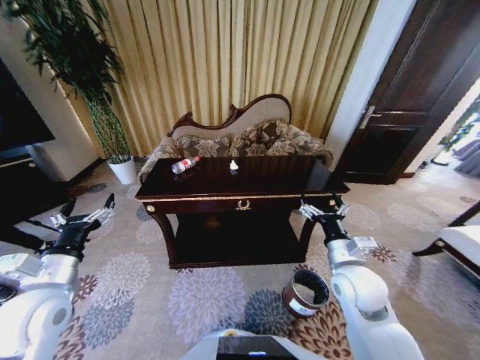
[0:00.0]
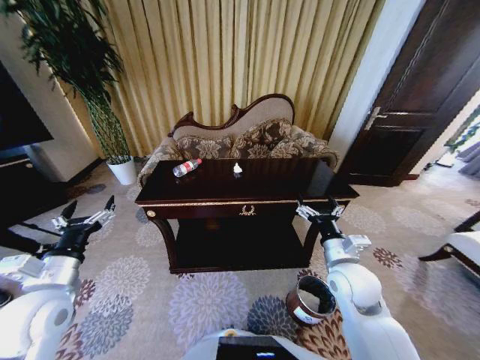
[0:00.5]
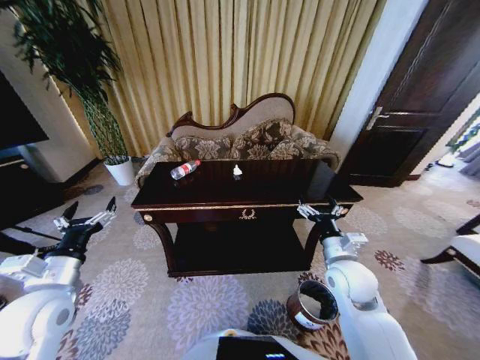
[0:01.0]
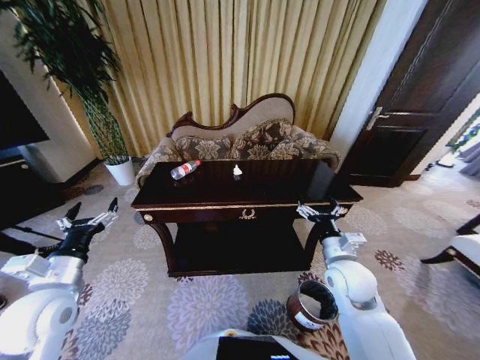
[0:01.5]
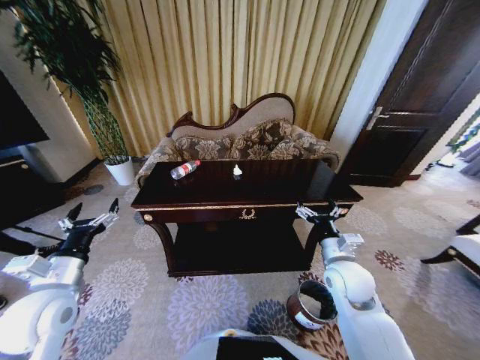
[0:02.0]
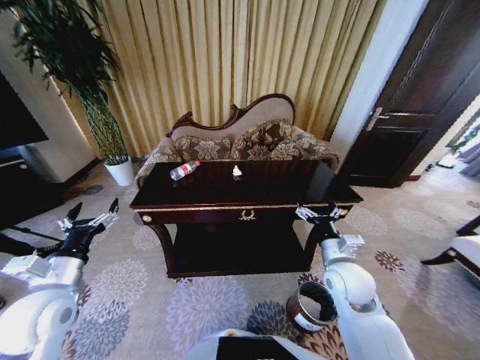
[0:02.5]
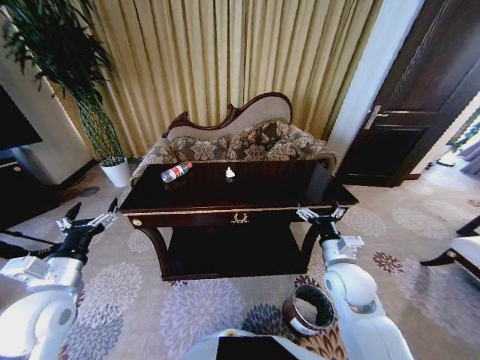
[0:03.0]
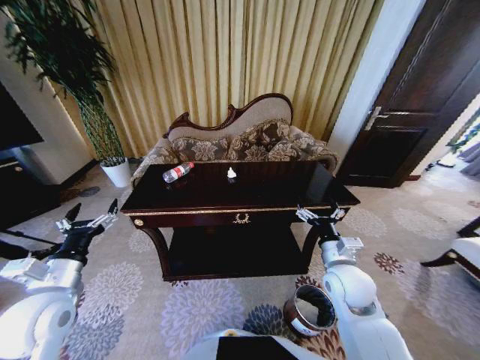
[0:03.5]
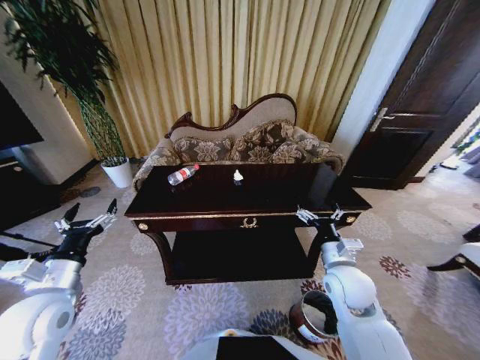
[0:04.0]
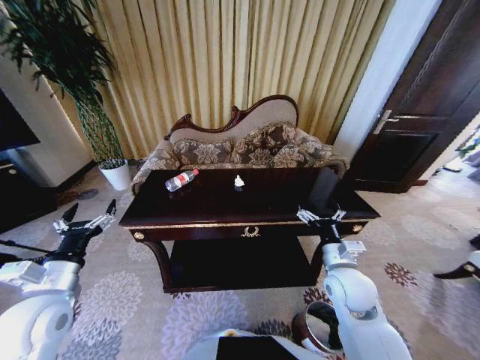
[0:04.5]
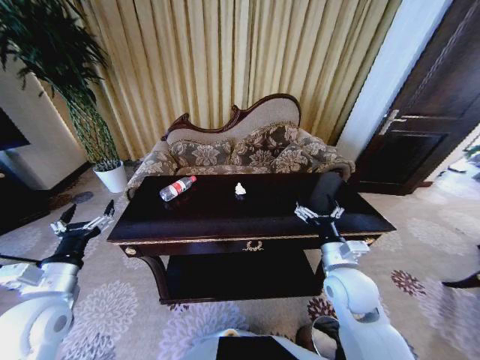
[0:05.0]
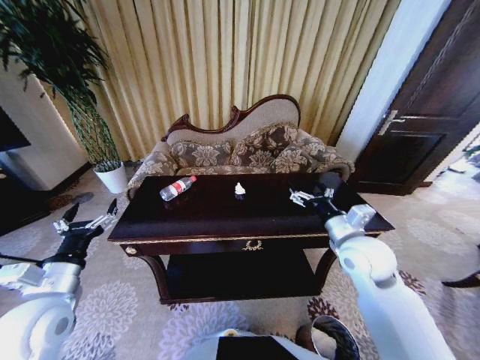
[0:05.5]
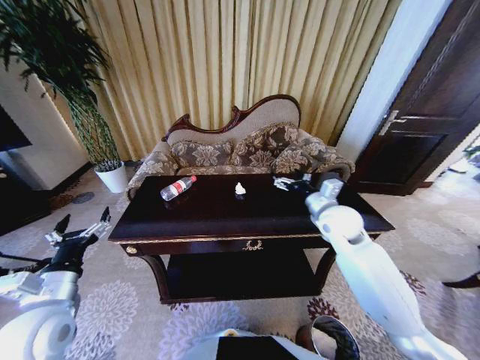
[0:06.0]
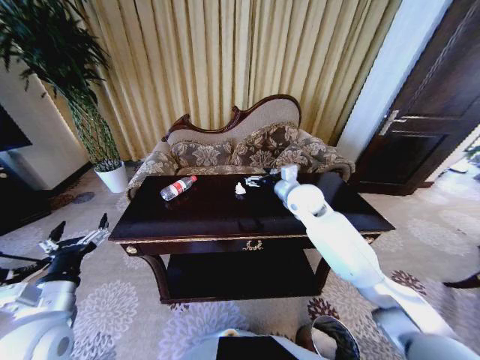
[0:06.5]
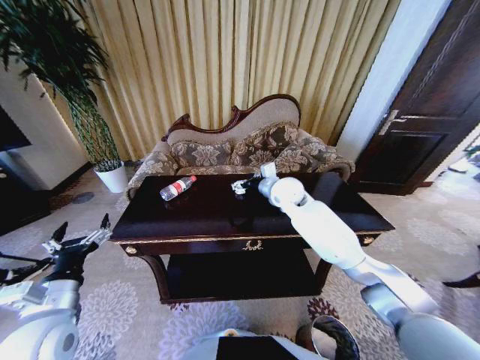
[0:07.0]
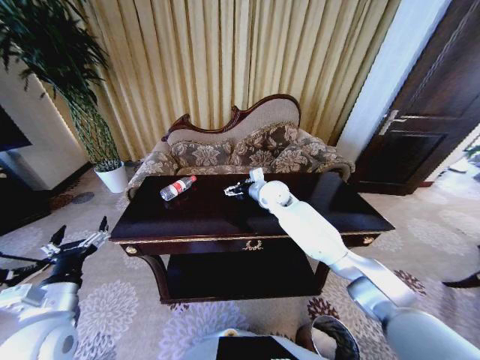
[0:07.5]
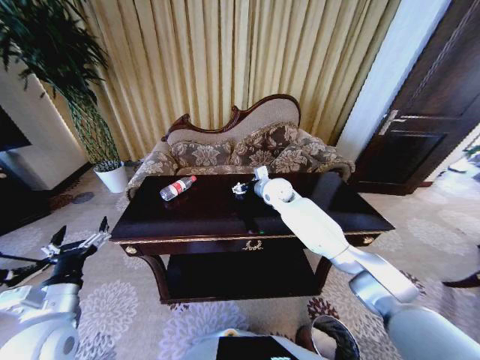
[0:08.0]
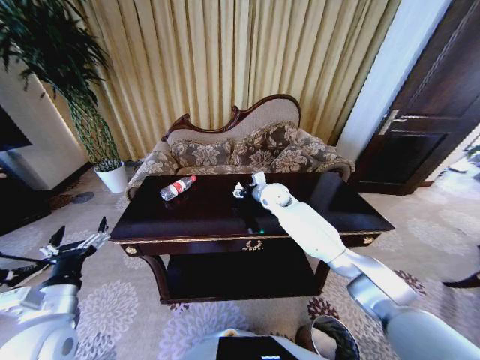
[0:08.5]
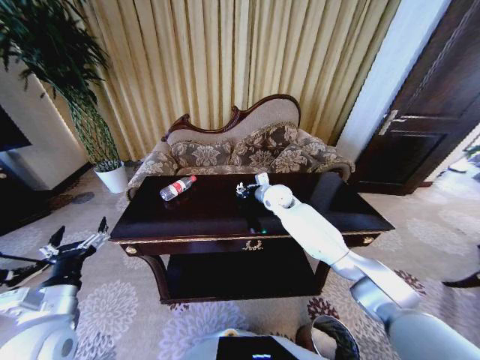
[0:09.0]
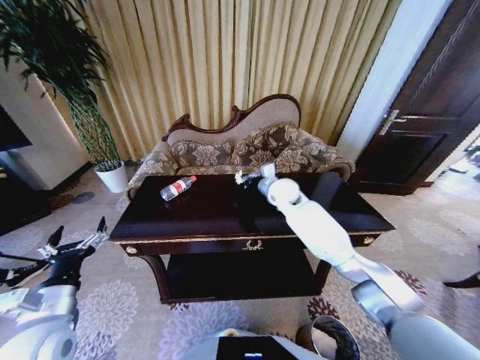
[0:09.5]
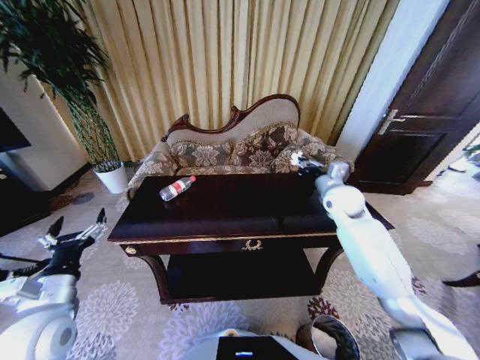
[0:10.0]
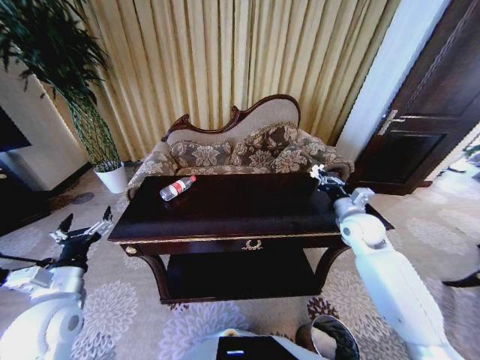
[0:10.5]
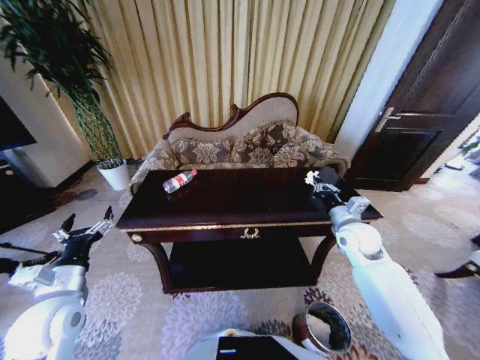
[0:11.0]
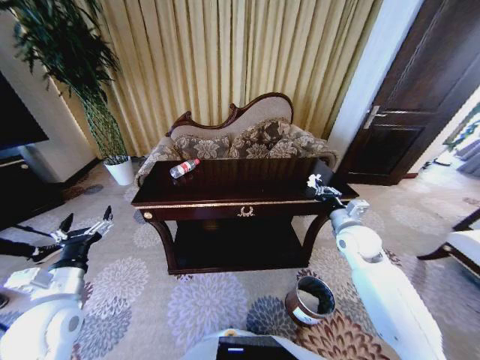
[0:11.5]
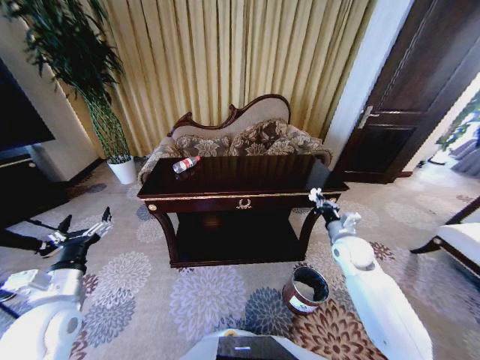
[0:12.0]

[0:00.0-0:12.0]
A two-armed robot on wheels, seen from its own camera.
Task of the whole recording: Move to the front of the table and place the trash on the table into the trash bin.
0:04.0 to 0:06.0: The right gripper heads forward and upward, covering roughly 15 cm.
0:06.0 to 0:08.0: The right gripper moves forward and to the left, roughly 20 cm.
0:08.0 to 0:10.0: The right gripper is displaced to the right and backward by about 20 cm, and closes up.
0:10.0 to 0:12.0: The right gripper shifts about 15 cm downward and backward.

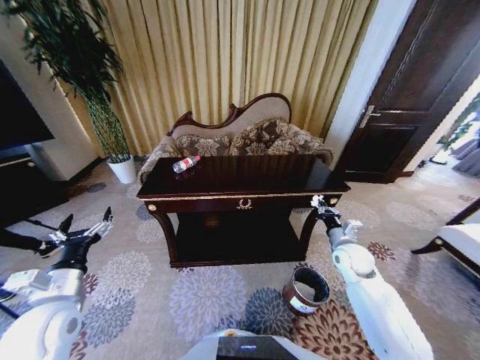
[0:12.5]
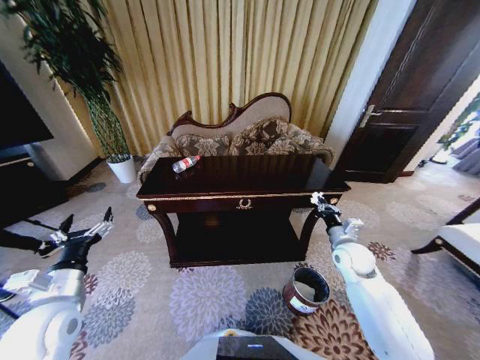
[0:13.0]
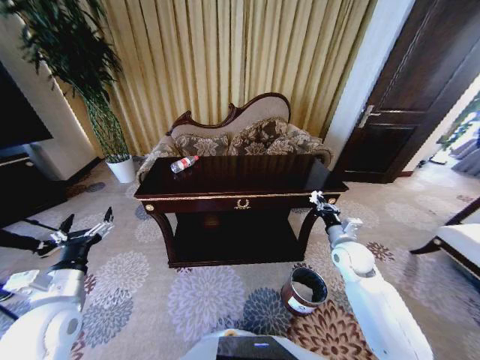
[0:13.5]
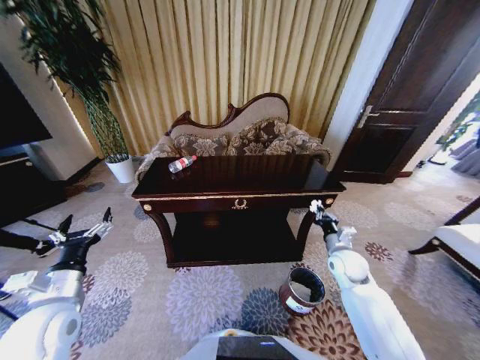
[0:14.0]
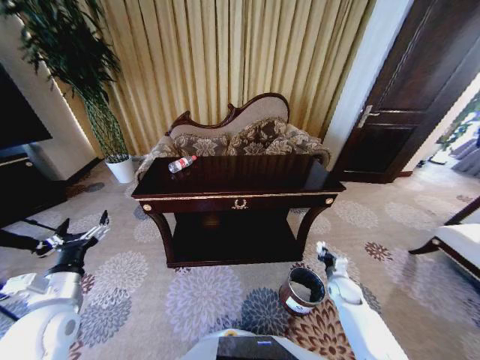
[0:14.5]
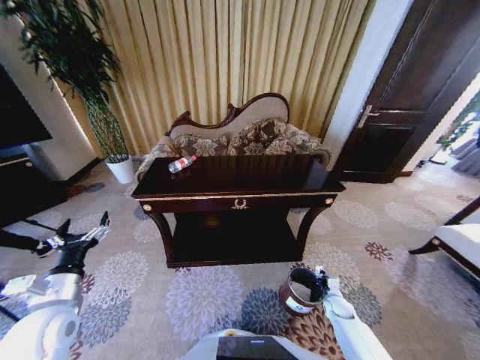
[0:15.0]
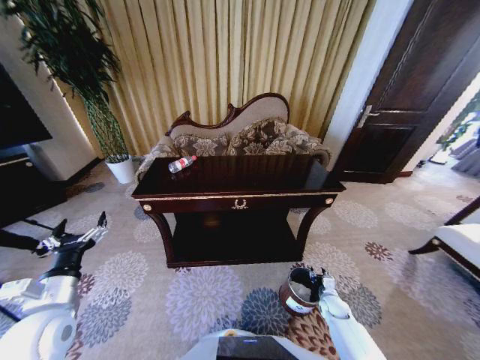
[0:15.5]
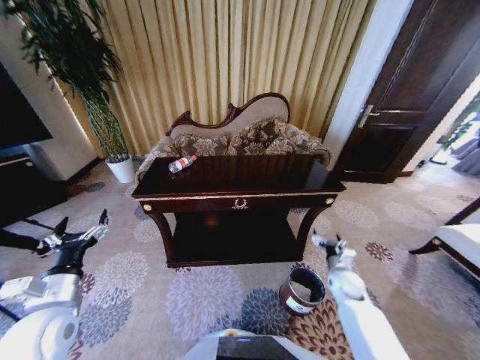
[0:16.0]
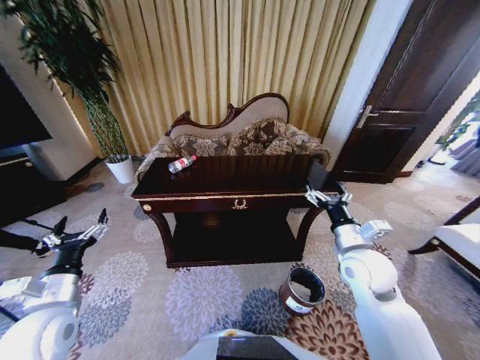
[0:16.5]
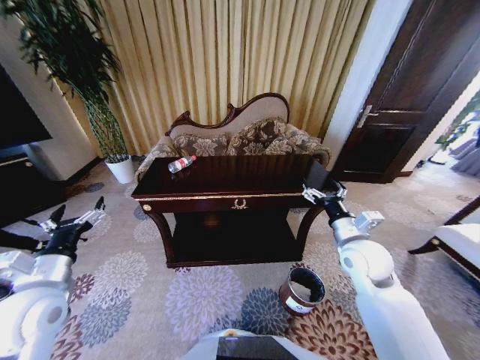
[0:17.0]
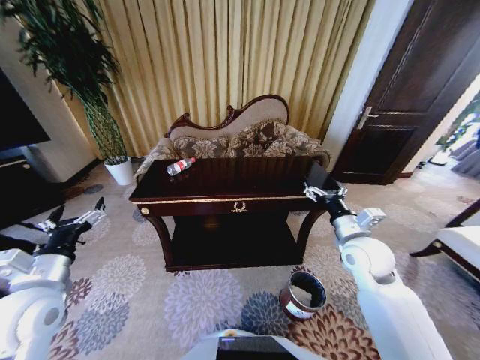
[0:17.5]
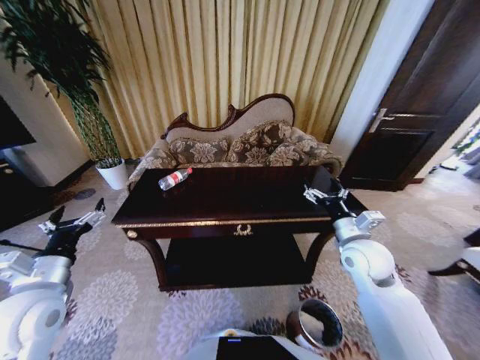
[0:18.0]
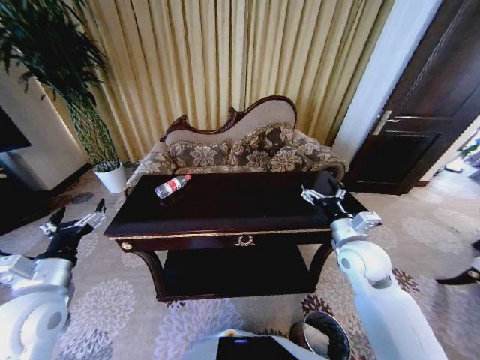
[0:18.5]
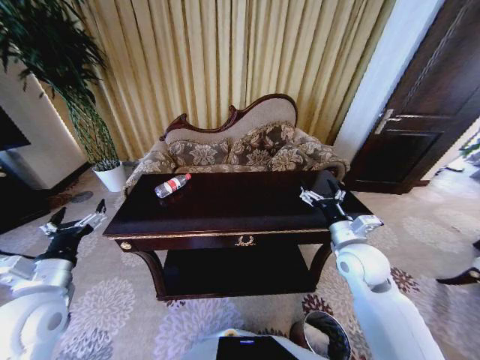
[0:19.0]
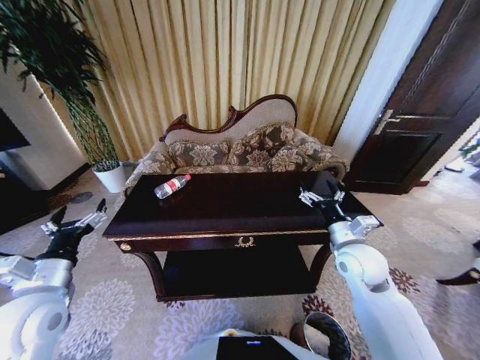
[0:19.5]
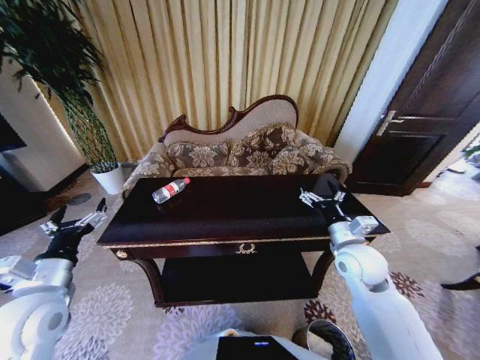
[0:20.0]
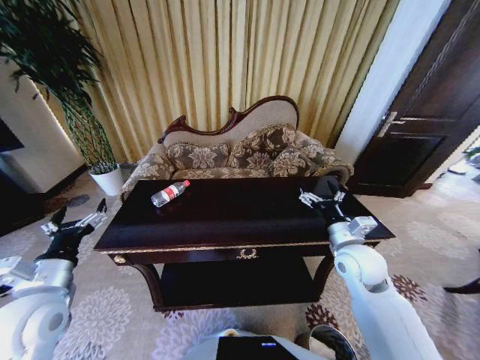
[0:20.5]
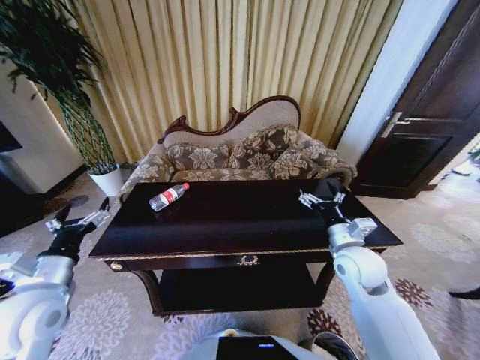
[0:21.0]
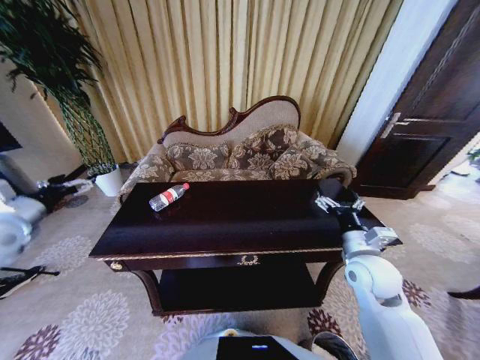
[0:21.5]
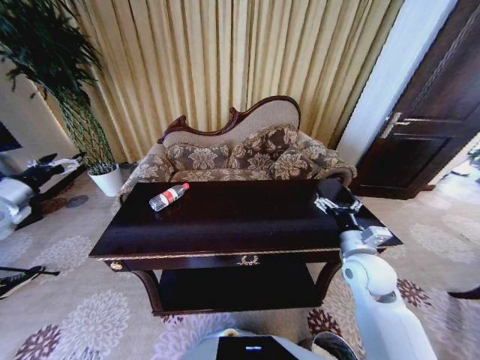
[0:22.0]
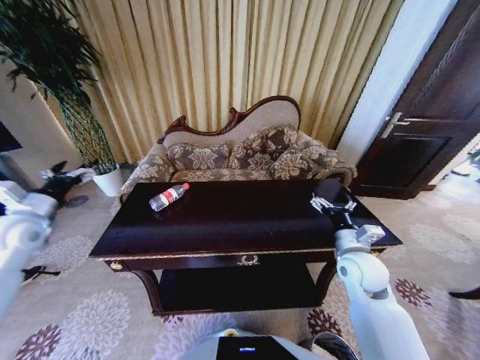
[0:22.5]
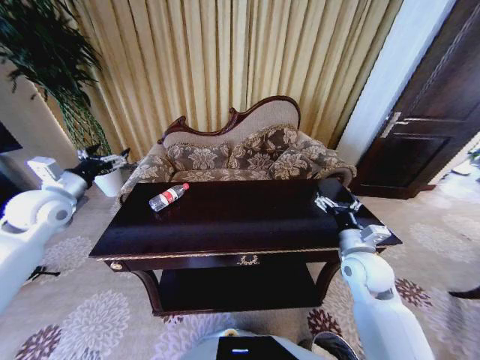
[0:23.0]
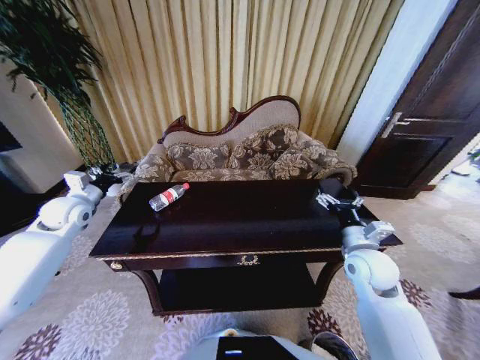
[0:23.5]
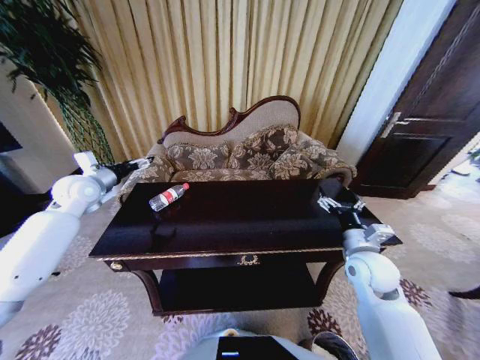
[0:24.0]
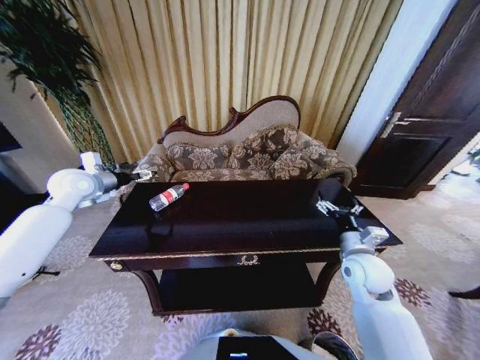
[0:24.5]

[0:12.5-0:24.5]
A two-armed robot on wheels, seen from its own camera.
Task of the whole recording: Move to the front of the table and place the trash on the table into the trash bin.
0:12.5 to 0:14.5: The right gripper shifts about 20 cm downward.
0:14.5 to 0:16.5: The right gripper heads upward, covering roughly 30 cm, and opens up.
0:20.5 to 0:22.5: The left gripper travels forward and to the left by about 20 cm.
0:22.5 to 0:24.5: The left gripper is displaced forward and to the right by about 15 cm.

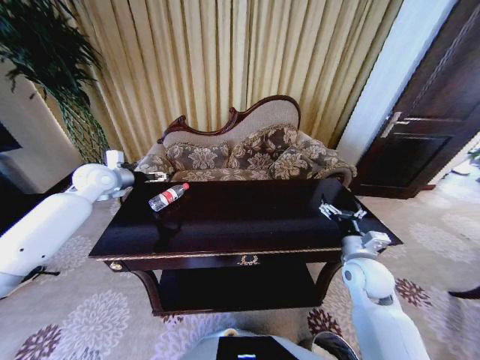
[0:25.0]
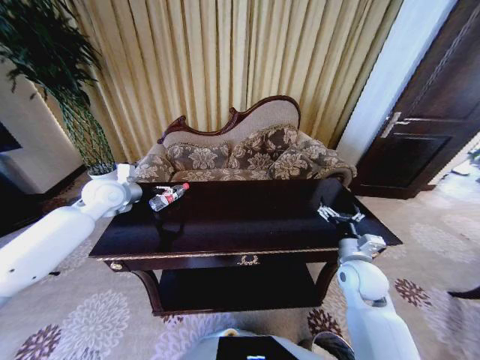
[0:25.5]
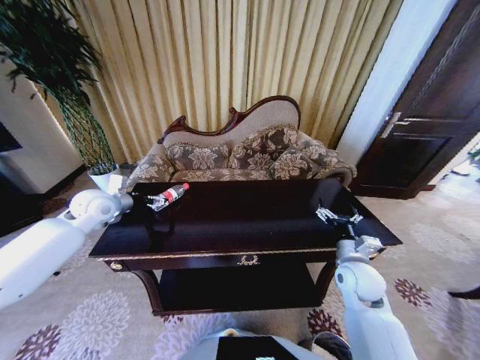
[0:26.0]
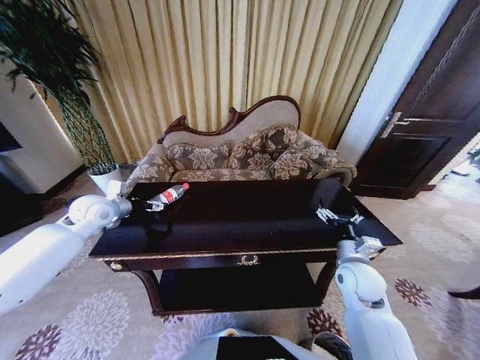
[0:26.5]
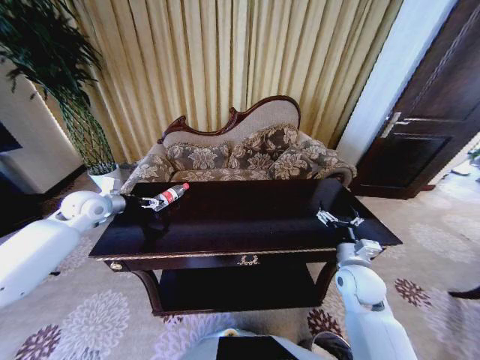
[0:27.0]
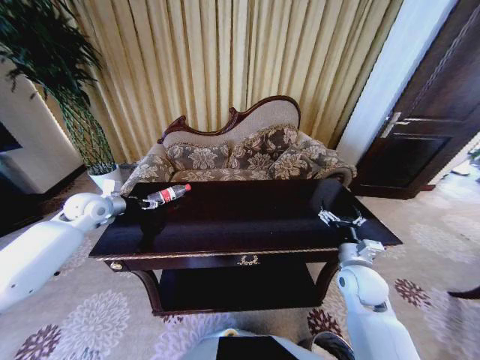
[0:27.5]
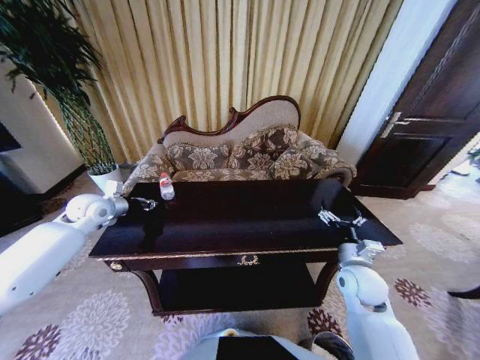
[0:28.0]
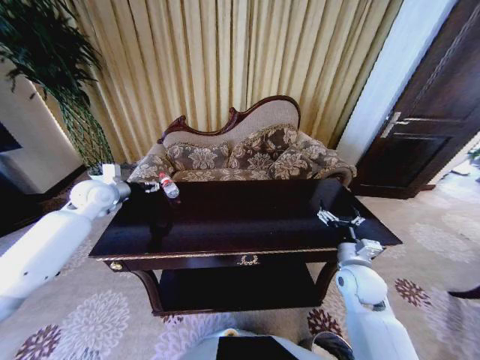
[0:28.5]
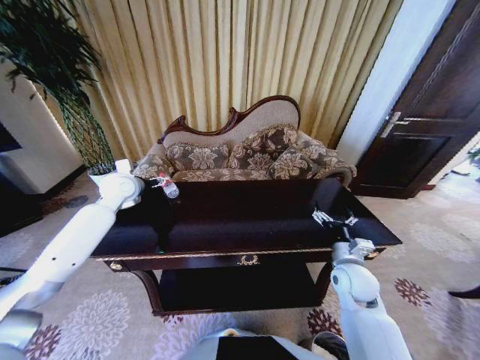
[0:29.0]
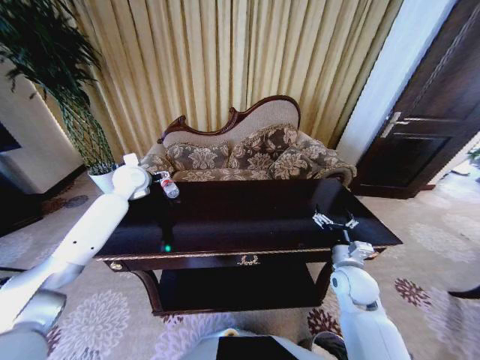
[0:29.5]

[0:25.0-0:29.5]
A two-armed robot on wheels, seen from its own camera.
Task of the whole recording: Move to the front of the table and place the trash on the table into the trash bin.
0:25.0 to 0:27.0: The left gripper travels backward by roughly 5 cm.
0:27.0 to 0:29.5: The left gripper goes about 15 cm to the right and forward, and closes, then opens again.
